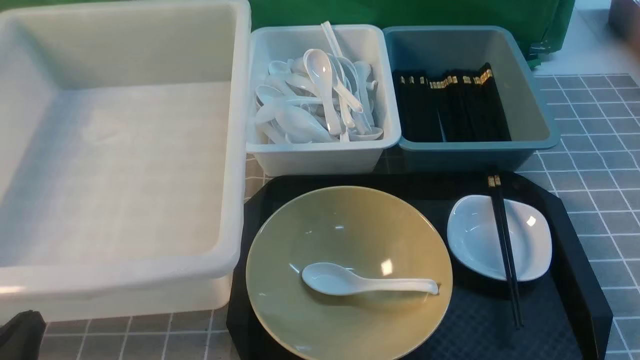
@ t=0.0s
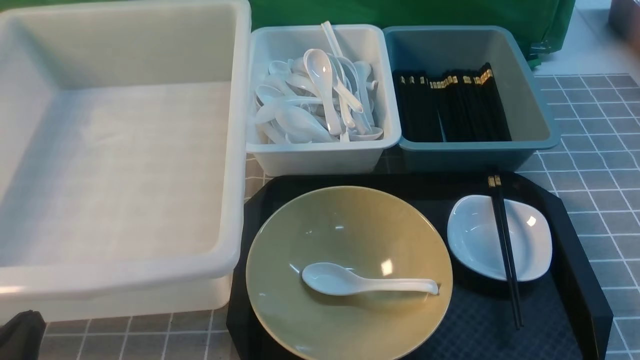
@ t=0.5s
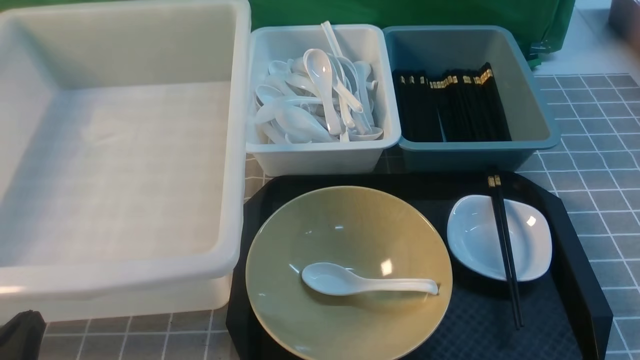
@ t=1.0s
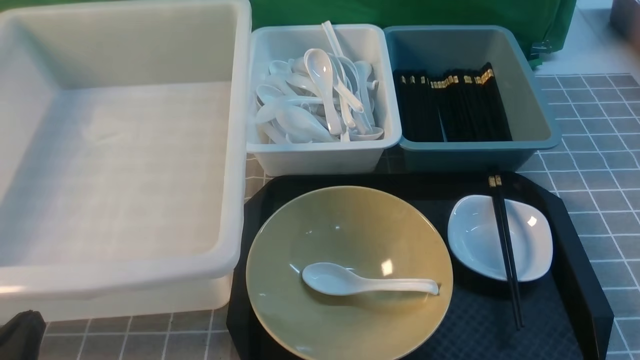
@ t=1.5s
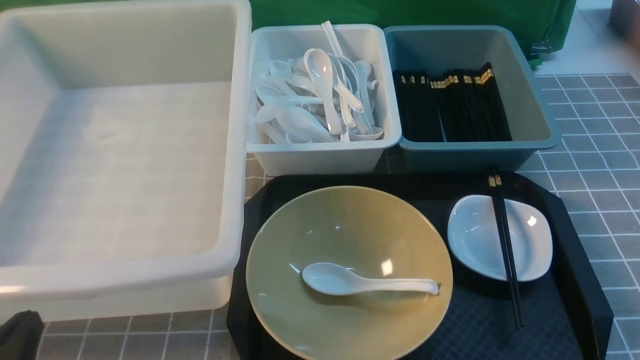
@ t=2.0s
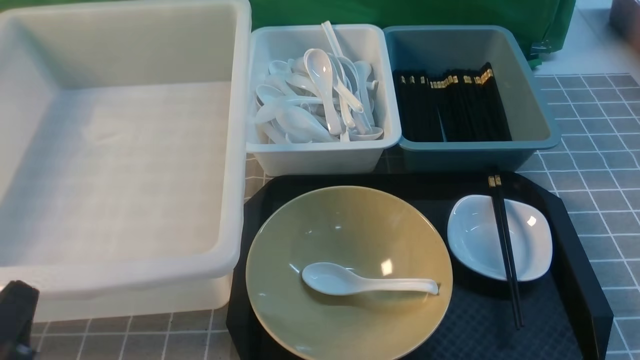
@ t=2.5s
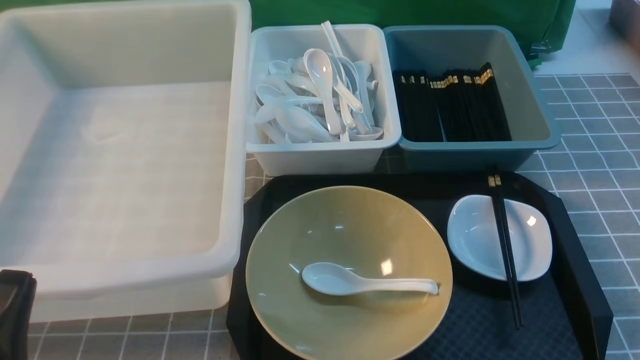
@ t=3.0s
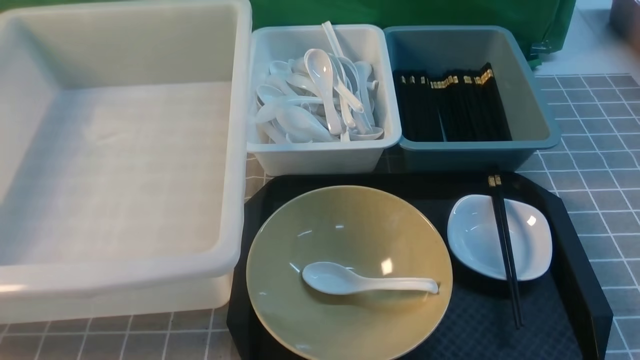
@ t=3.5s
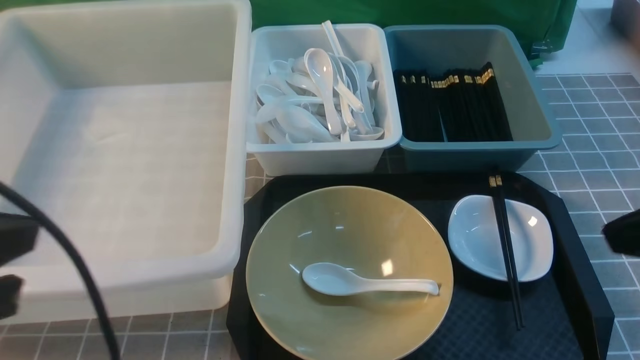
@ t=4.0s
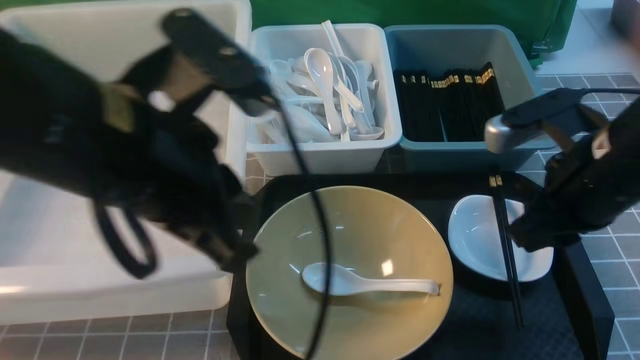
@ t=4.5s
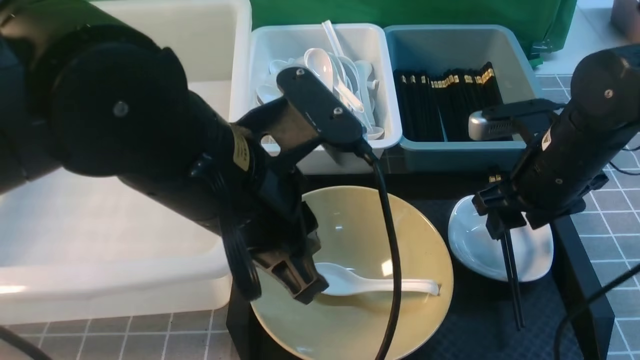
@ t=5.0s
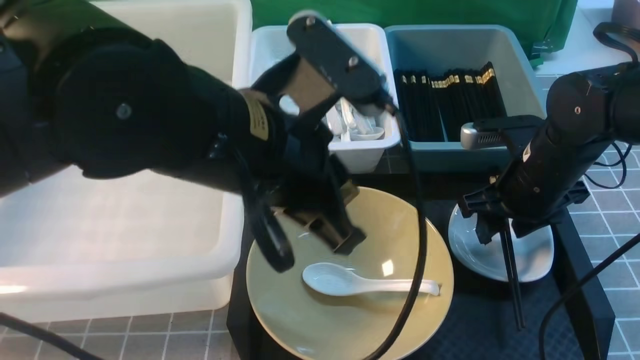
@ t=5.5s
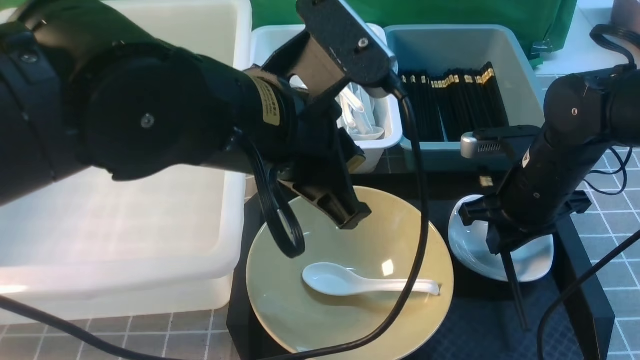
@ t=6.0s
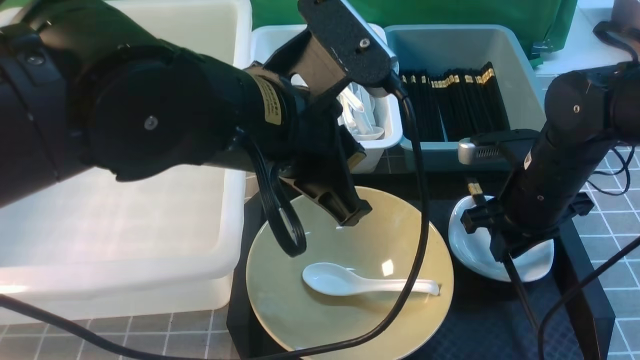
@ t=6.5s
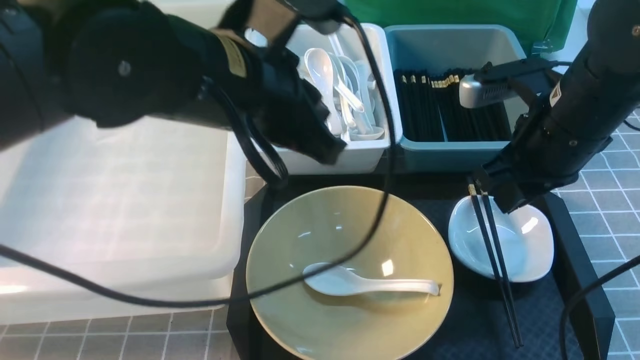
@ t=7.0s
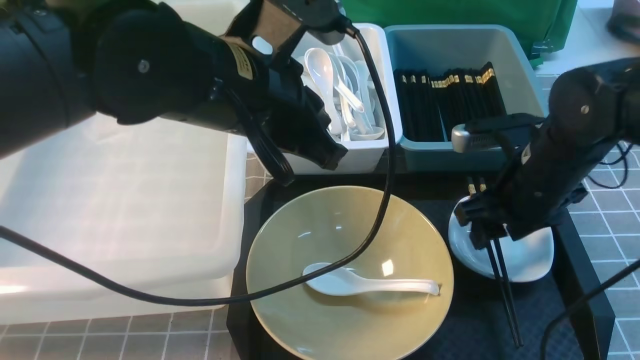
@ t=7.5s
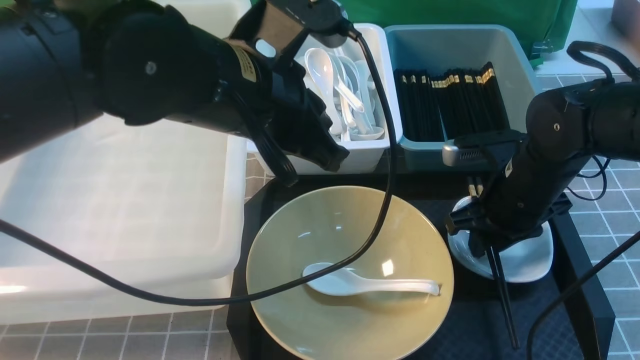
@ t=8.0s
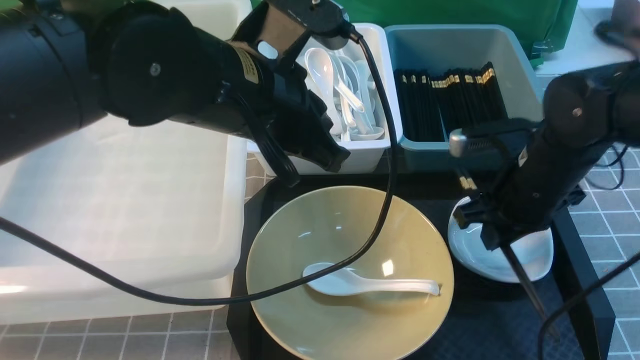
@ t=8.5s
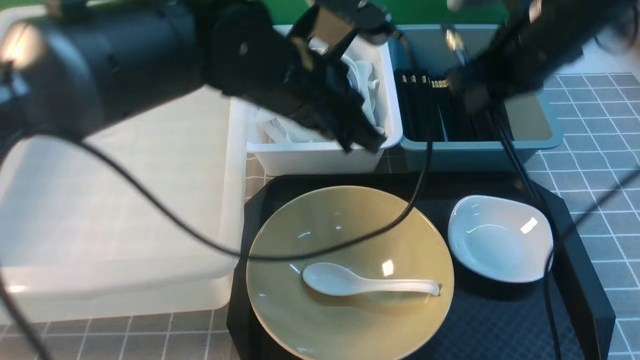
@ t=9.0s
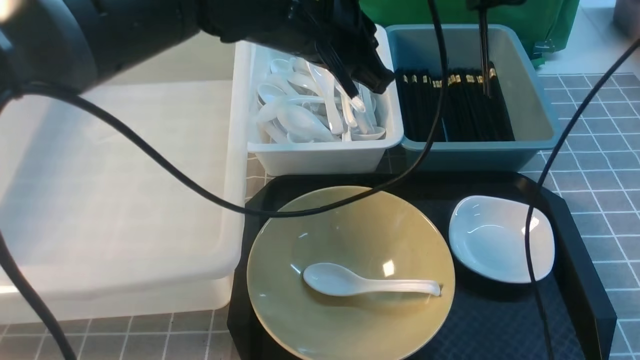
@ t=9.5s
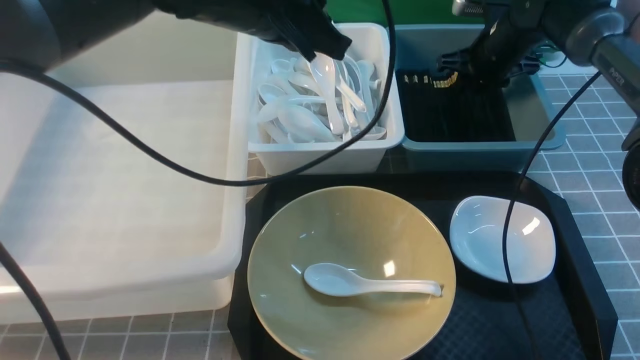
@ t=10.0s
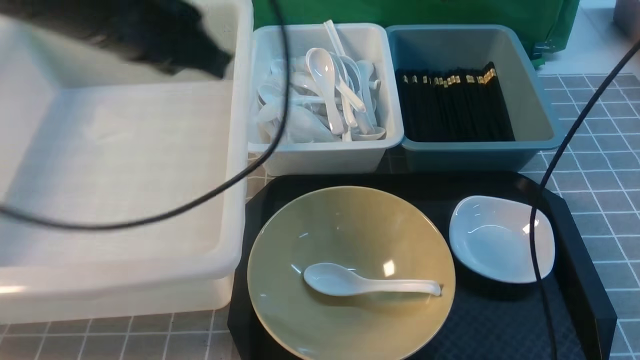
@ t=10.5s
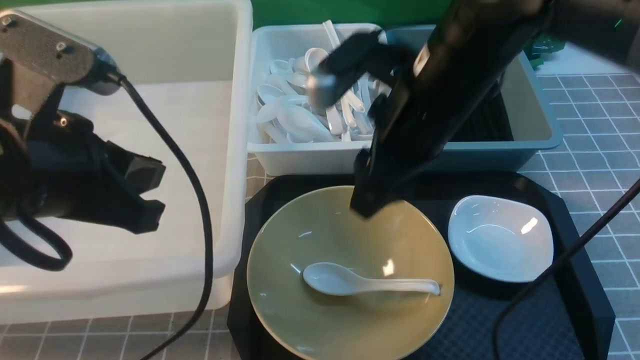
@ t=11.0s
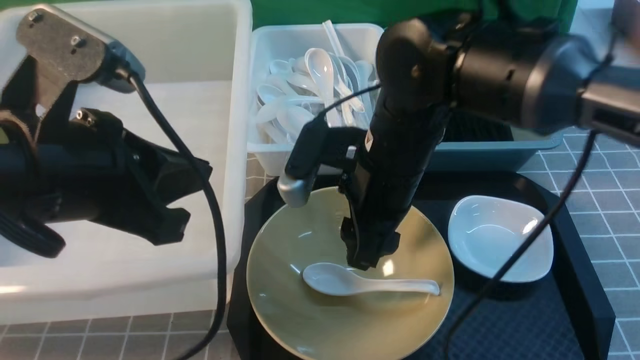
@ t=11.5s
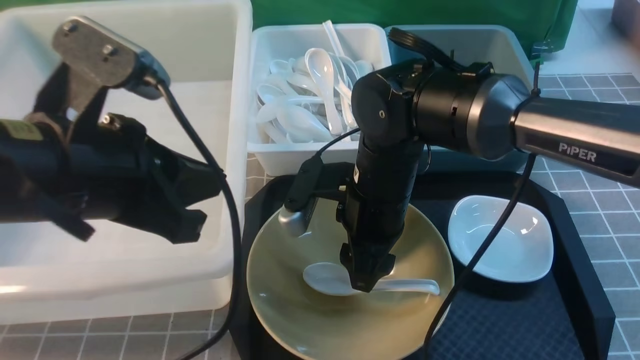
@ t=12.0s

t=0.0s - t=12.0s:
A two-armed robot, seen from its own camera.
Task of the whole recording: on grey table put chopsticks spoon bowls plates into blue grey white boxes.
Step, t=0.0s - t=8.5s: use the right arm to grab the chopsticks.
Step, t=9.0s - t=10.0s: use the right arm to put the chopsticks into the small storage box on the right.
t=0.0s - t=2.0s: Neither gripper changes place.
t=2.0s - t=4.0s: The right gripper goes about 20 cm upward and forward, and closes its fingers. Meanwhile the left gripper moves upward, approximately 20 cm.
t=4.0s - t=6.0s: The left gripper shifts about 20 cm to the right and forward, while the right gripper goes about 25 cm forward and downward, and opens its fingers.
t=6.0s - t=8.0s: The right gripper travels upward and back again, approximately 10 cm each way.
t=8.0s - t=10.0s: The right gripper travels forward by some 20 cm, while the left gripper moves forward, roughly 10 cm.
t=10.0s - t=12.0s: The left gripper heads backward and to the left, covering approximately 20 cm. The right gripper heads backward and to the left, covering some 30 cm.

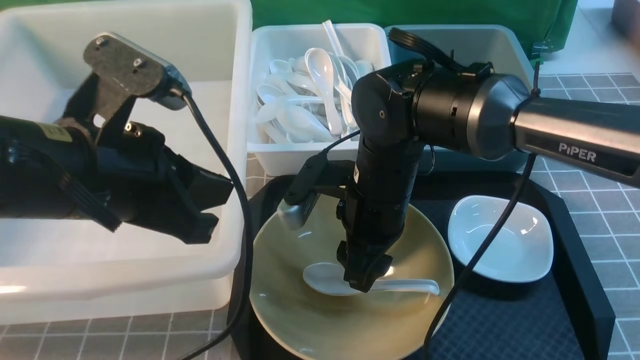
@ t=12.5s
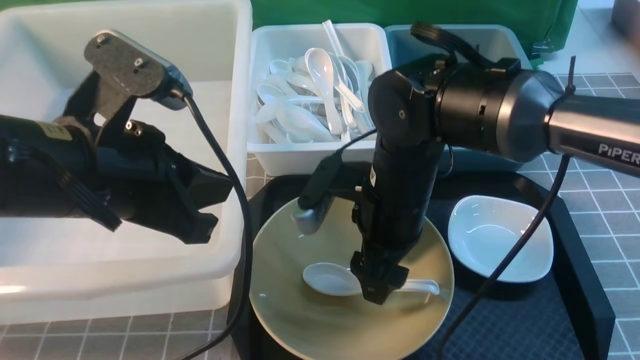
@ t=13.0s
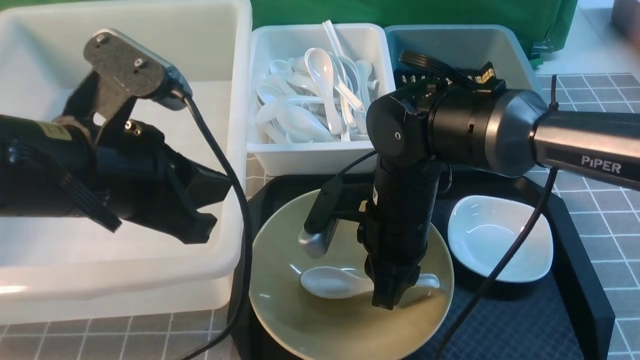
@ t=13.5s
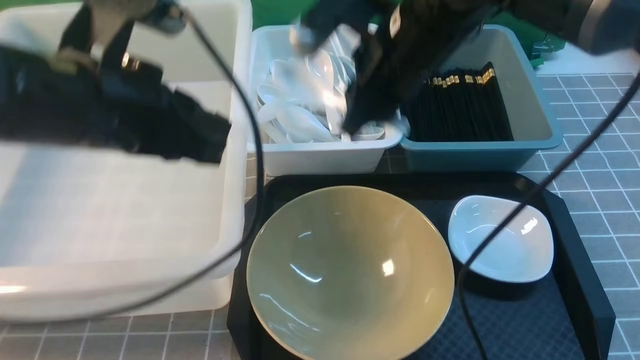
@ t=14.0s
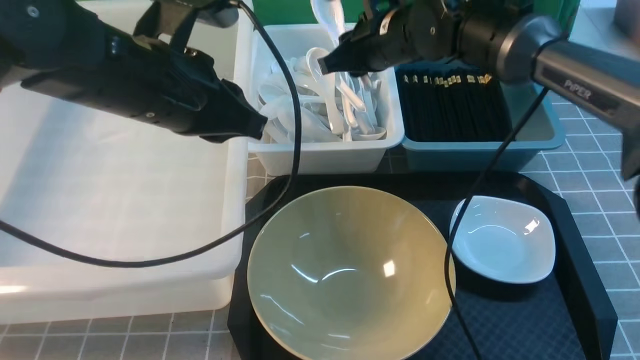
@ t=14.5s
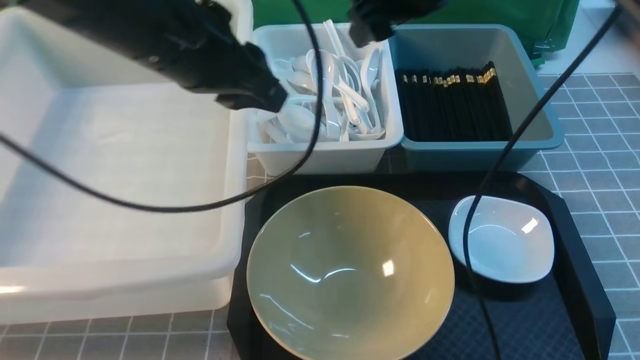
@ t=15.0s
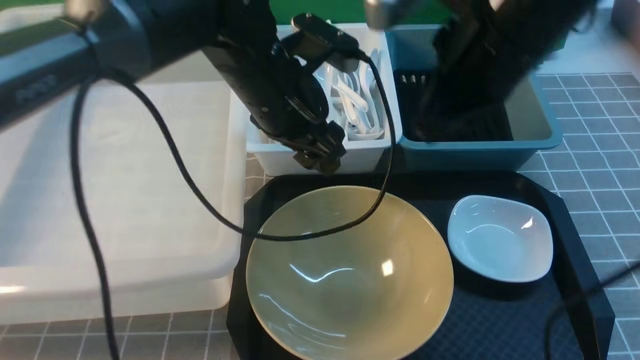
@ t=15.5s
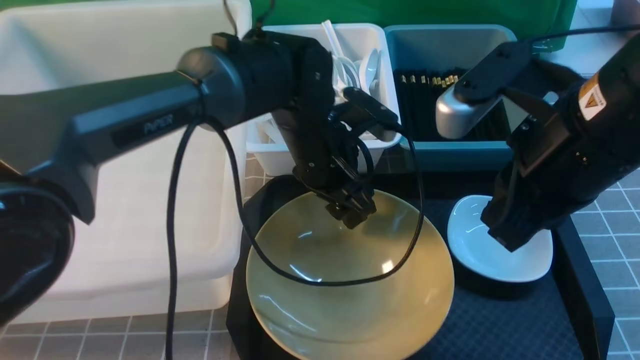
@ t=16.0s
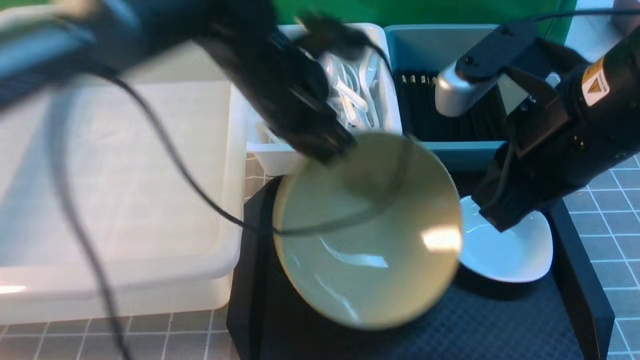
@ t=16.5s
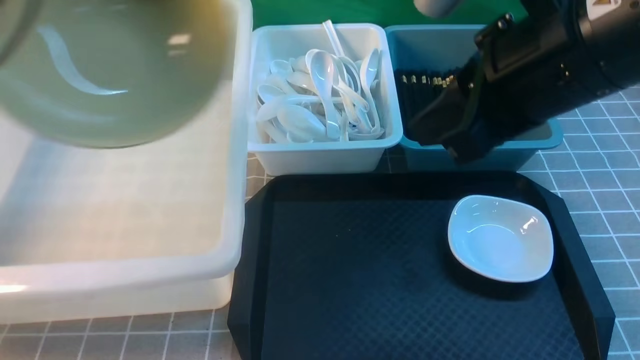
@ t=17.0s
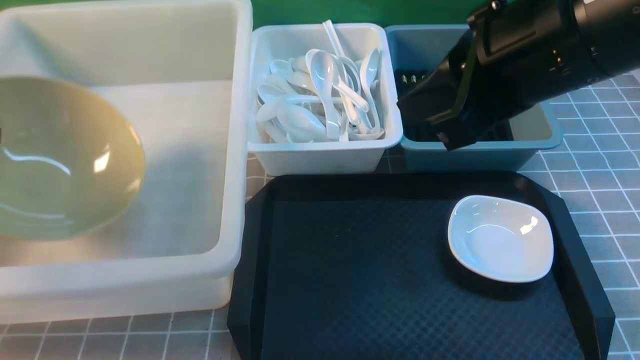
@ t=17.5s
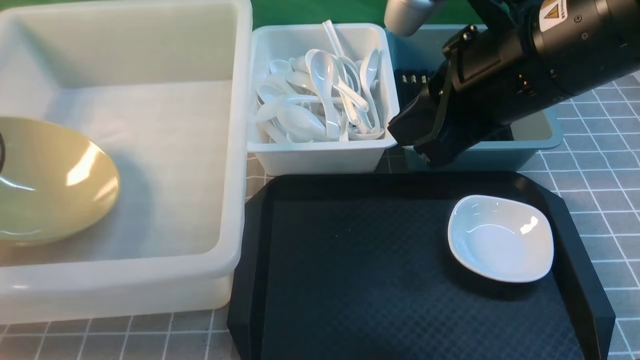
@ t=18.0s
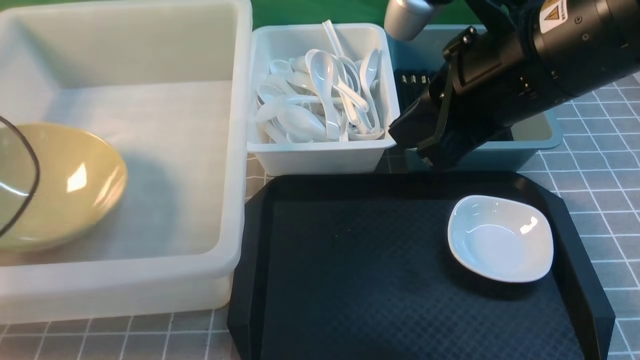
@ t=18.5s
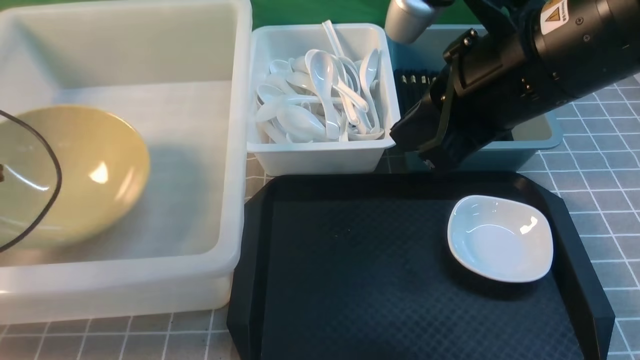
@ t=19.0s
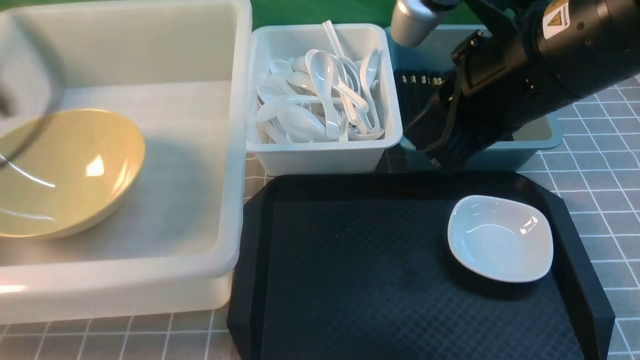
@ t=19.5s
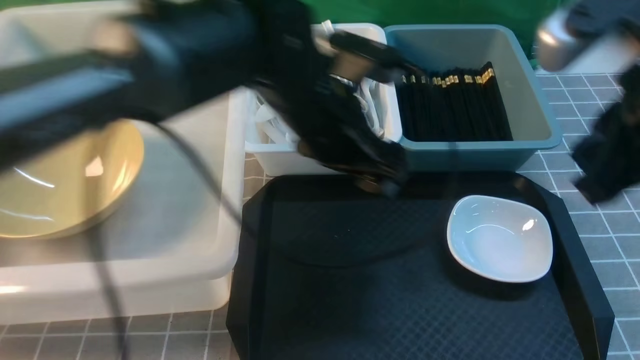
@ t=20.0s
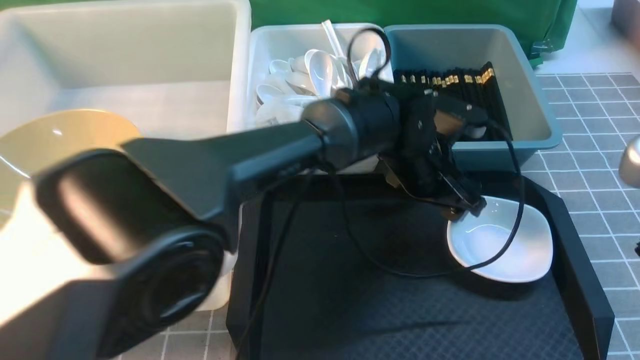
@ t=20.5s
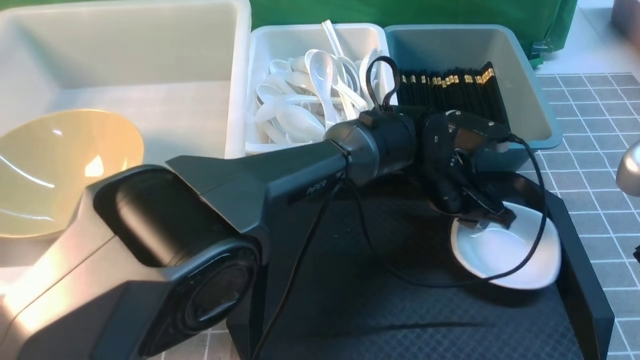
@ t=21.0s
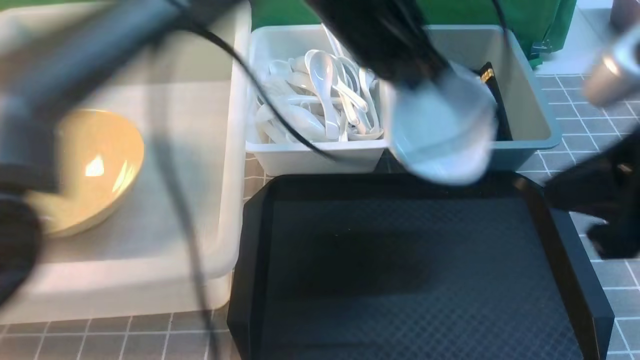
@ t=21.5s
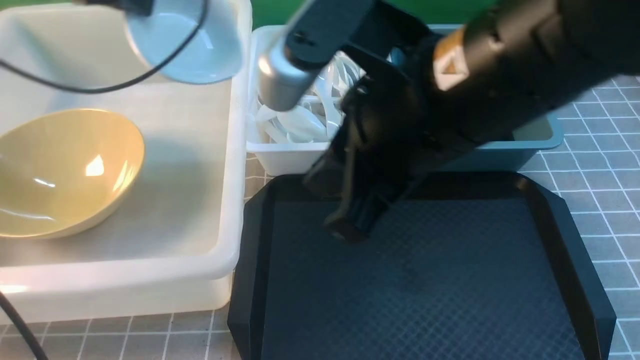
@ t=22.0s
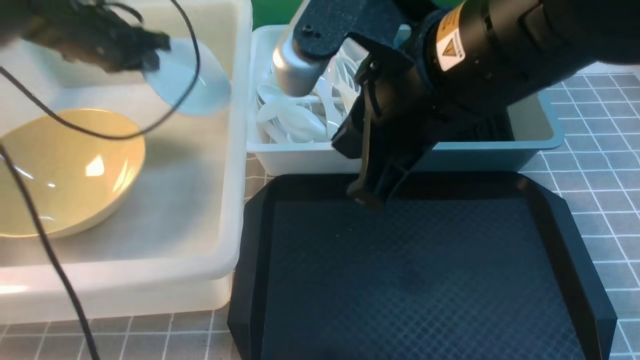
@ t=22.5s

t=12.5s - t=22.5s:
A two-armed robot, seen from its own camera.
Task of the whole recording: on grey table put chopsticks spoon bowls plates into blue grey white boxes.
Step, t=14.0s - t=15.0s: use the right arm to put the soup spoon into the small storage box in the middle.
Step, t=15.5s - t=16.5s: use the left arm to grab the yellow noodle bowl on the left.
Step, t=17.0s - t=19.0s: use the left arm to put the noodle bowl into the large storage box on the left.
Step, t=19.5s - t=21.0s: use the left arm to grab the plate.
t=12.5s - t=14.5s: The left gripper moves forward, about 10 cm. The right gripper goes about 15 cm forward and upward, and closes and opens again.
t=14.5s - t=16.5s: The left gripper is displaced forward and to the right by approximately 5 cm, travels downward and back again, about 10 cm each way, and opens, then closes again, while the right gripper travels backward by some 25 cm, and closes.
t=16.5s - t=18.5s: The left gripper is displaced to the left by some 30 cm, and opens its fingers.
t=18.5s - t=20.5s: The left gripper goes about 50 cm to the right, while the right gripper is displaced to the right and backward by some 15 cm.
t=20.5s - t=22.5s: The left gripper goes approximately 40 cm to the left, and closes up. Meanwhile the right gripper moves to the left and forward, approximately 20 cm.
